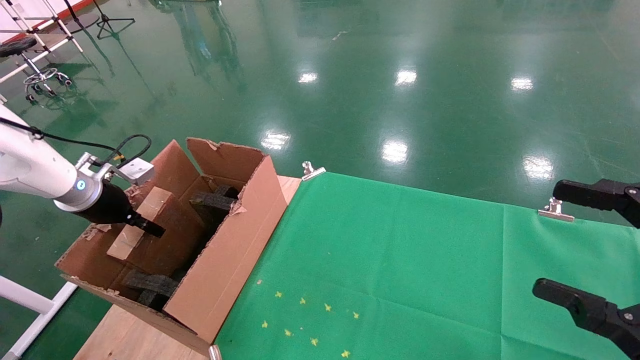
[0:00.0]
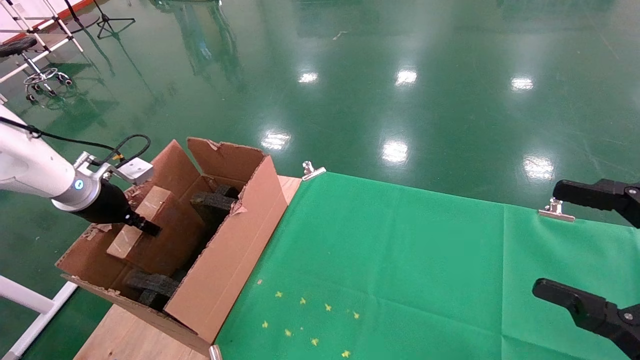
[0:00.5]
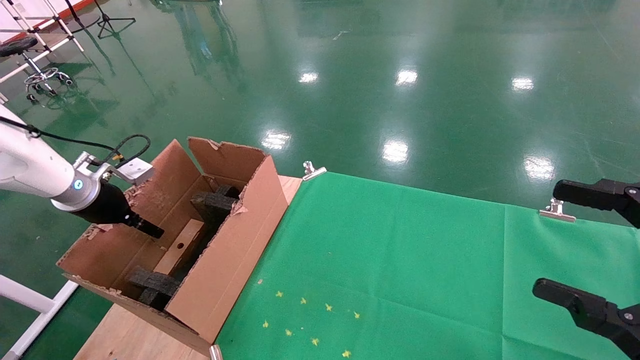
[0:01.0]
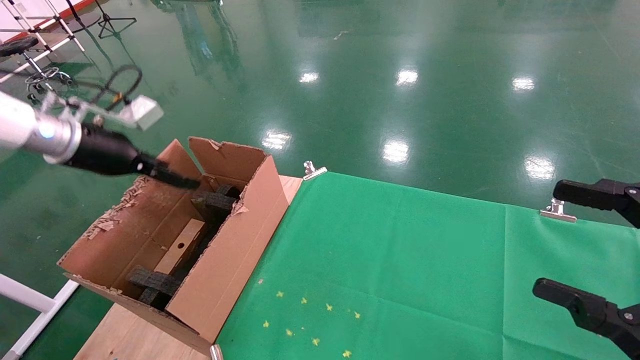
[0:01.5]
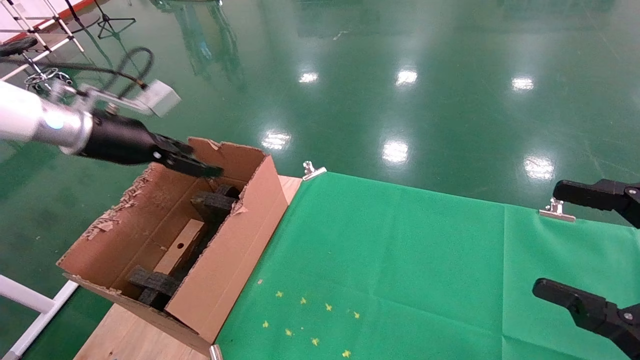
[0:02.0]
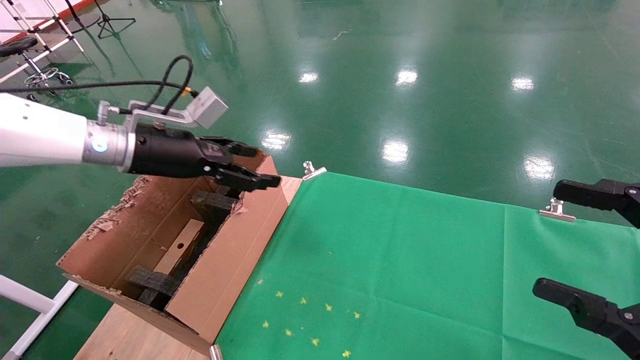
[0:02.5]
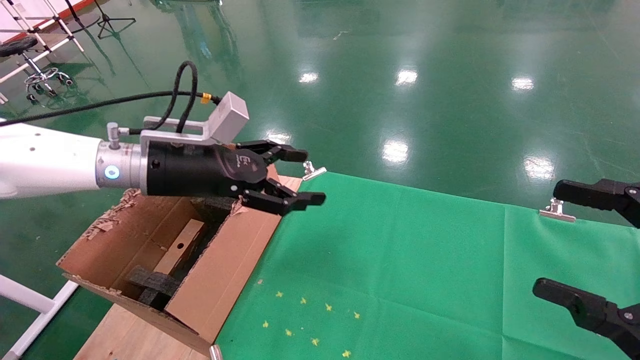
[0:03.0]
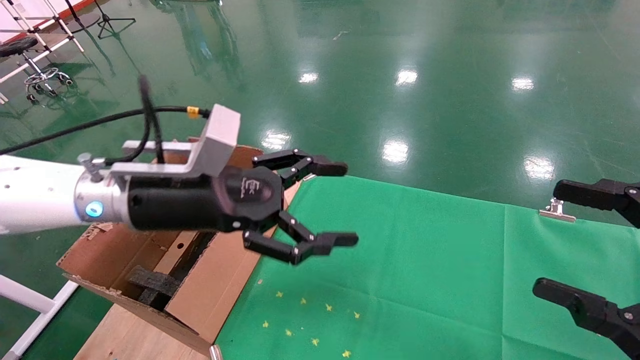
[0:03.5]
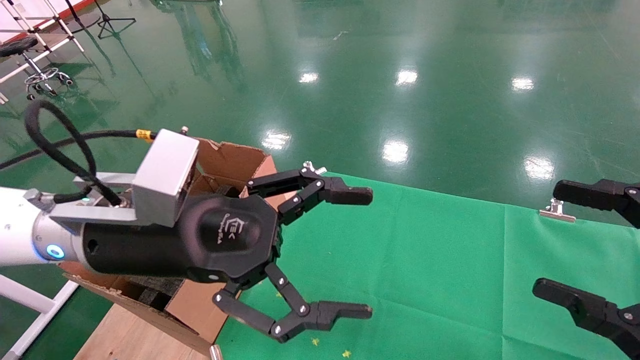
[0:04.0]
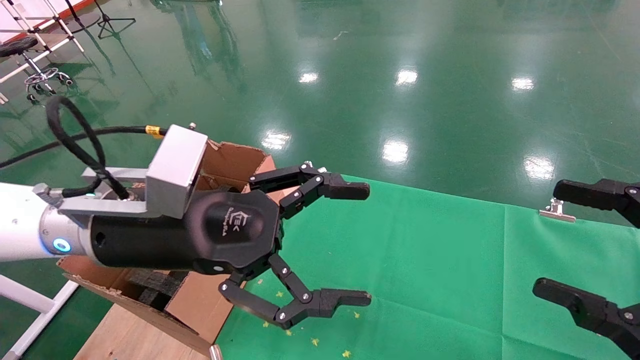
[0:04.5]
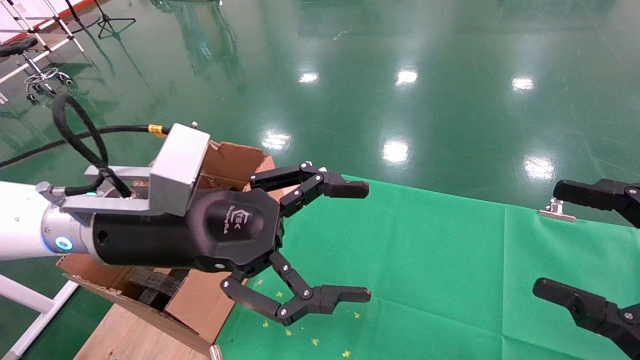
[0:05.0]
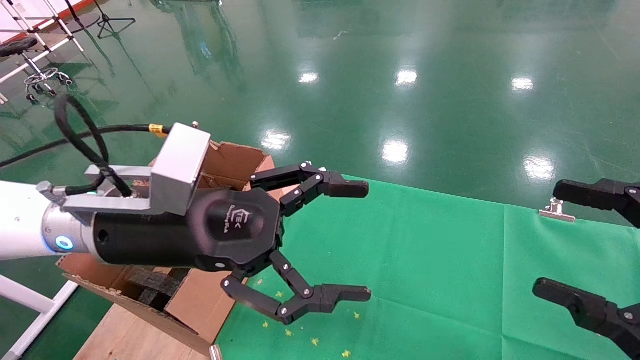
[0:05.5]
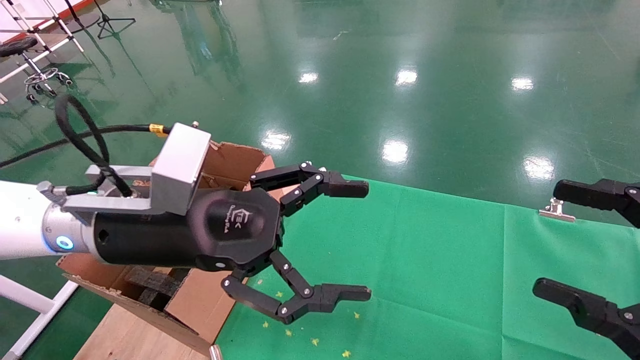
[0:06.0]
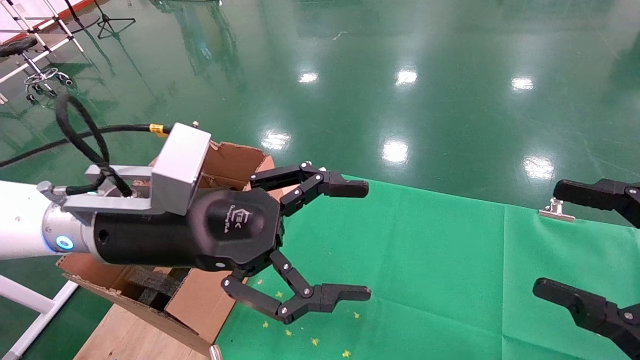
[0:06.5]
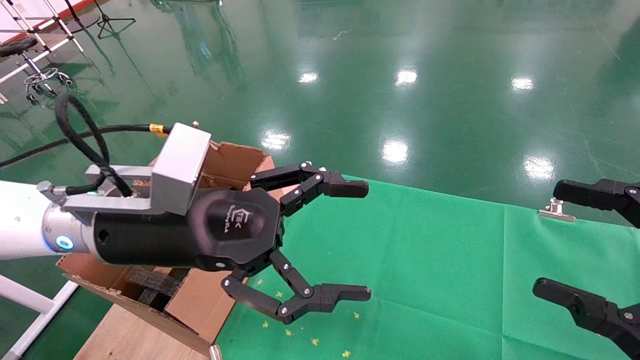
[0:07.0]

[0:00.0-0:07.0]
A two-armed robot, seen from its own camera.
Task of the whole recording: using a robotic arm to pick up a cardboard box and palace it the carton.
0:00.0 to 0:02.0: The left gripper travels upward and to the right by roughly 15 cm, and opens up.
0:02.0 to 0:03.5: The left gripper heads to the right and backward, covering some 20 cm.
0:03.5 to 0:05.0: The grippers stay close to where they were, moving slightly.
0:05.0 to 0:07.0: Both grippers stay put.
